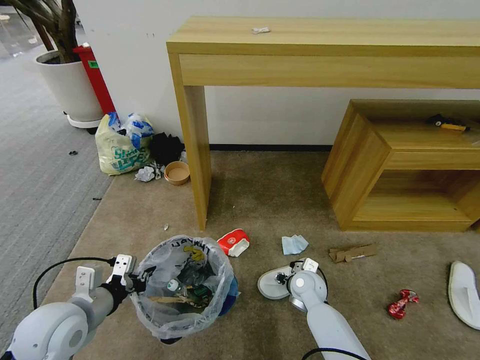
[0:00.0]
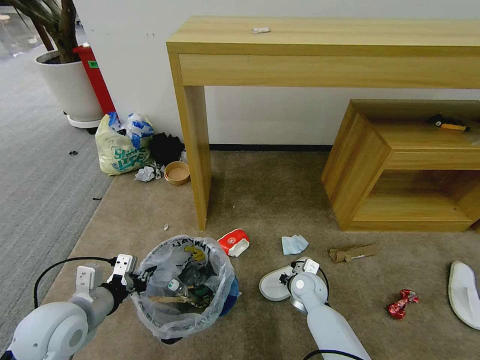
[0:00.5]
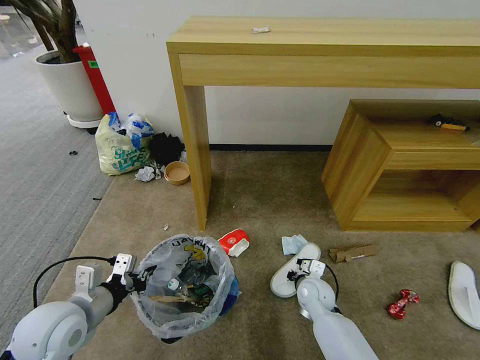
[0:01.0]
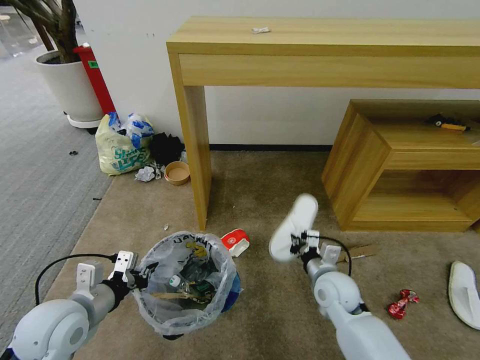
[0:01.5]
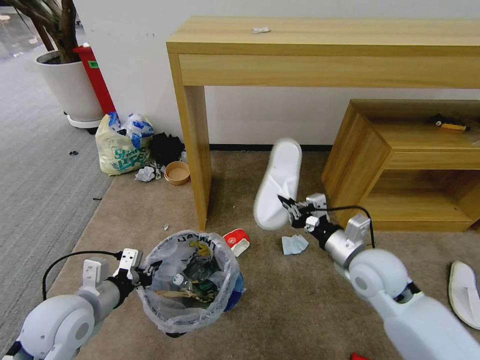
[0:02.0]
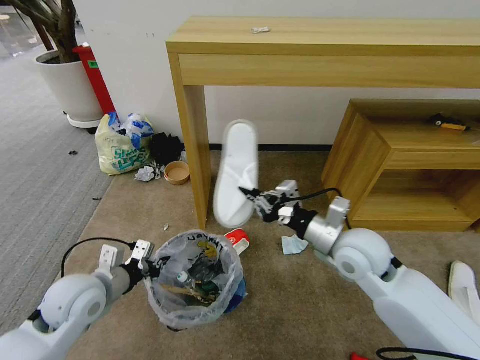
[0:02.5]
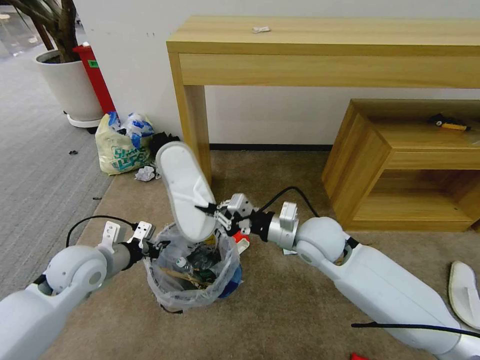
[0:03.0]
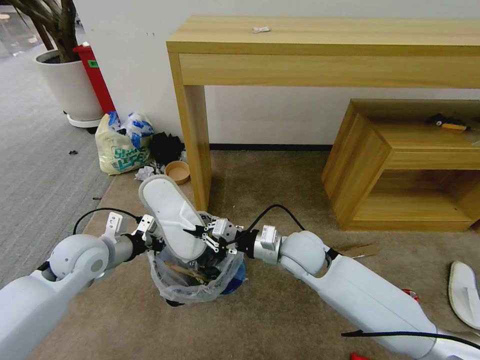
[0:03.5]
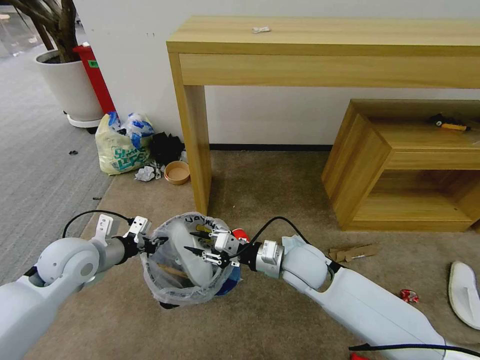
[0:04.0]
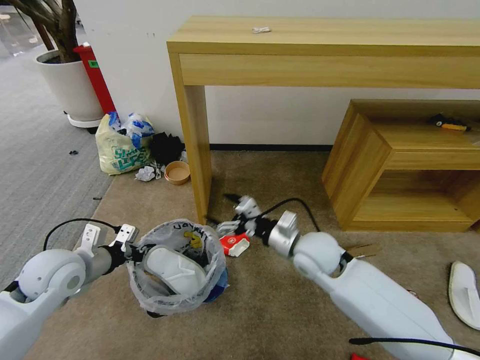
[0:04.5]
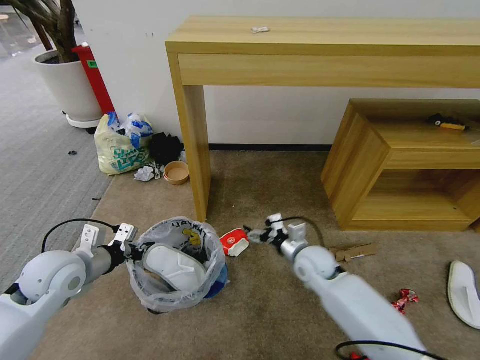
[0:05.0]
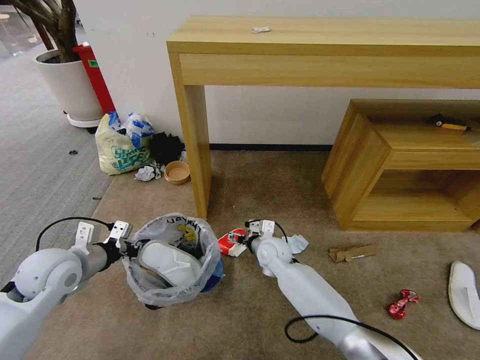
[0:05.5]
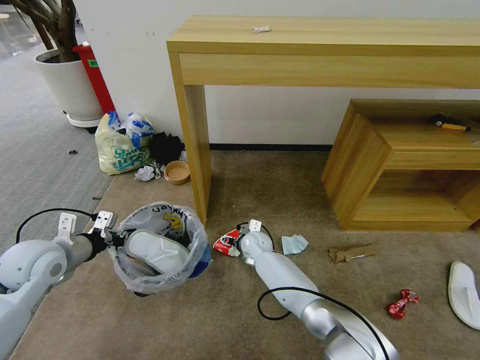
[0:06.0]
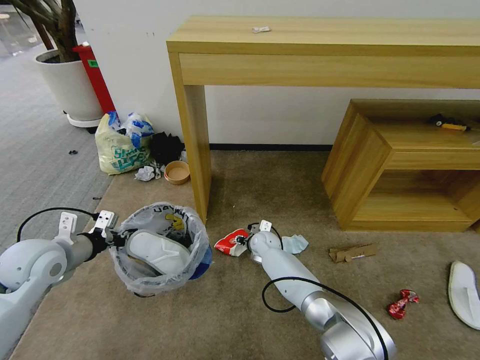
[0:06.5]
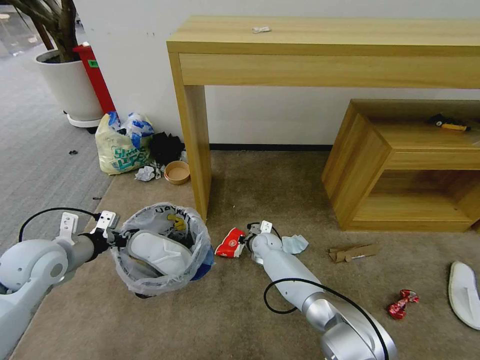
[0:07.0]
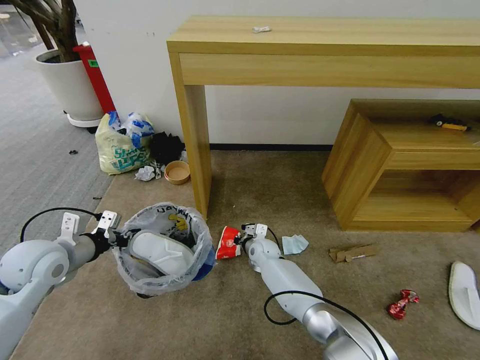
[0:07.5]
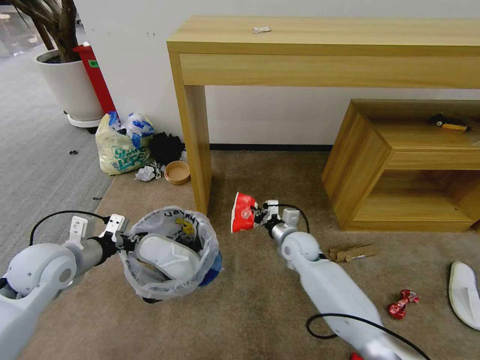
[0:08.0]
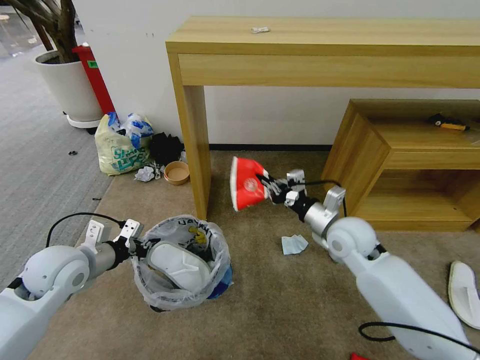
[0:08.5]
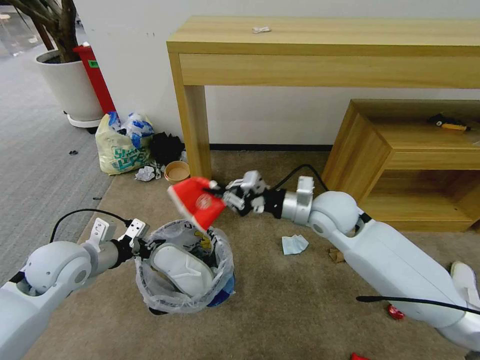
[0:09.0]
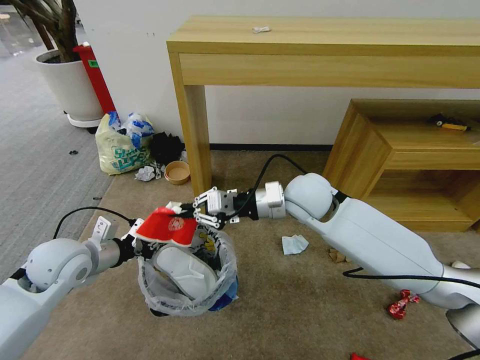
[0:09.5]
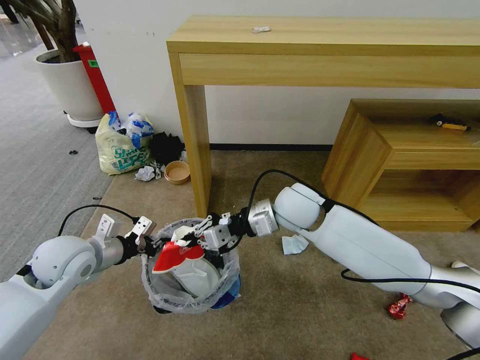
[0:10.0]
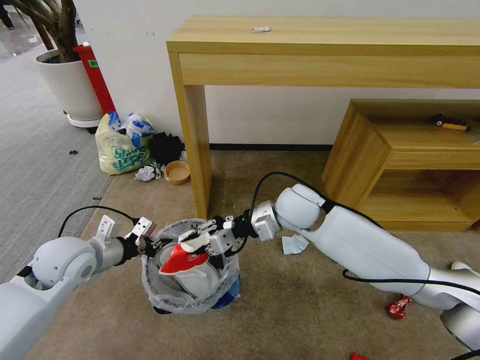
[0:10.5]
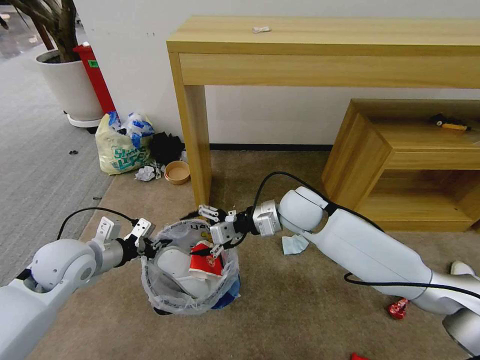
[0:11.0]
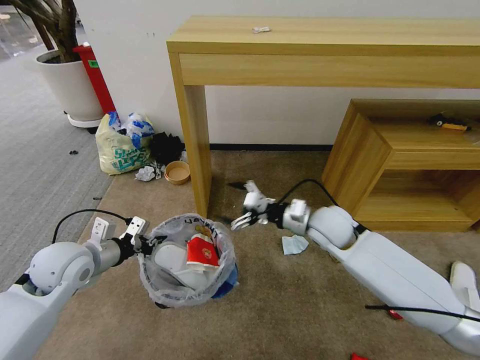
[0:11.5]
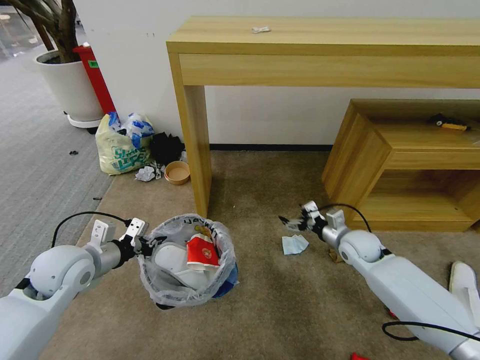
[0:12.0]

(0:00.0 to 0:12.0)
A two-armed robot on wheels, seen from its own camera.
Task of the whole recording: Pick up the trash bin and place the garbage on the floor into it.
0:00.0 - 0:02.0: The right gripper heads upward, covering approximately 20 cm, and closes its fingers.
0:02.0 - 0:04.0: The right gripper shifts some 15 cm to the left. The left gripper goes some 10 cm forward.
0:04.0 - 0:06.0: The left gripper travels to the left by approximately 5 cm; the right gripper heads downward, forward and to the left, covering roughly 20 cm, and opens.
0:06.0 - 0:08.0: The right gripper heads to the right, covering approximately 10 cm, and closes.
0:08.0 - 0:10.0: The right gripper travels upward by some 20 cm.
0:10.0 - 0:12.0: The right gripper shifts approximately 25 cm to the right and downward, and opens its fingers.

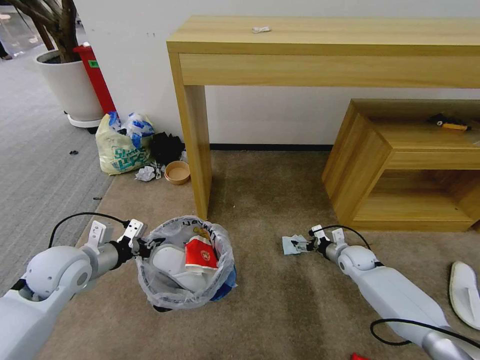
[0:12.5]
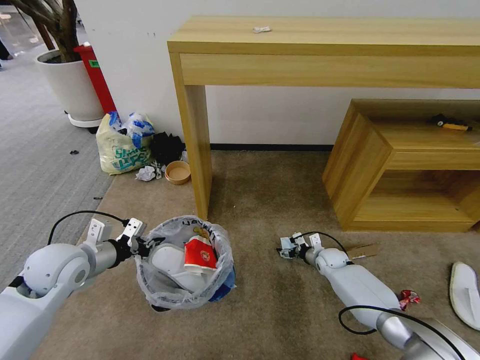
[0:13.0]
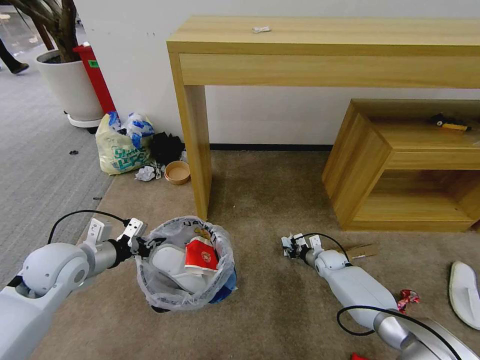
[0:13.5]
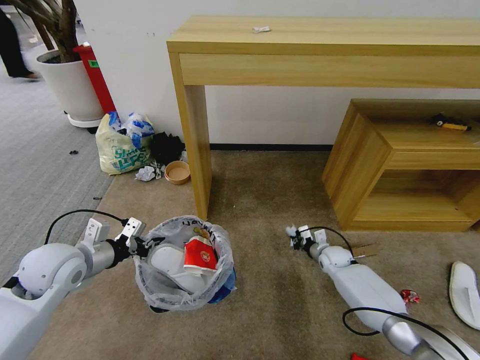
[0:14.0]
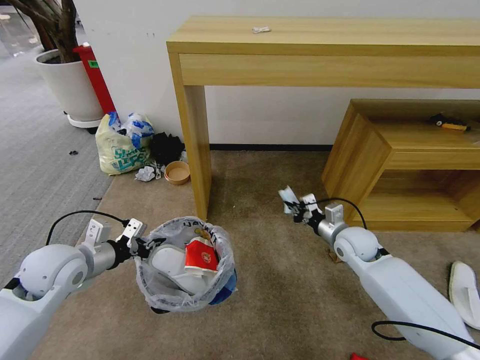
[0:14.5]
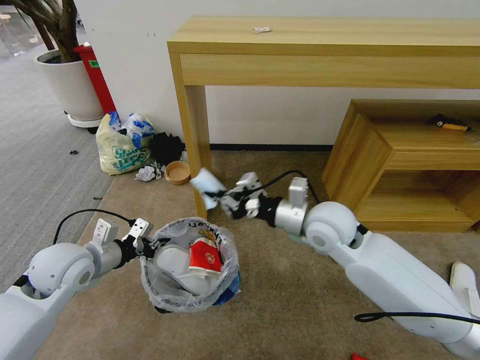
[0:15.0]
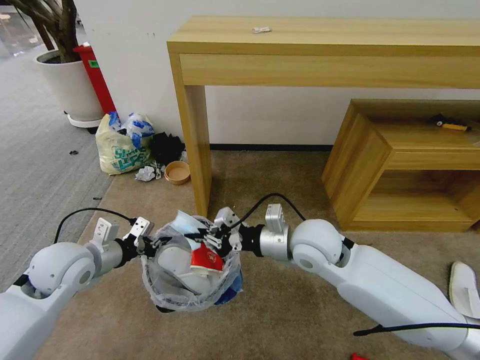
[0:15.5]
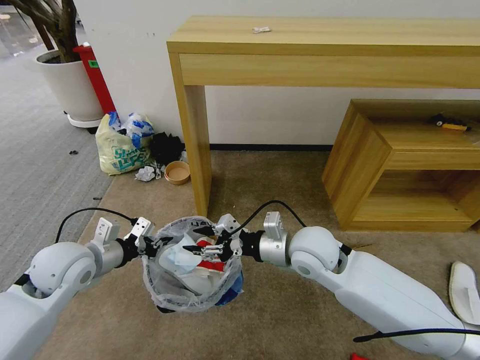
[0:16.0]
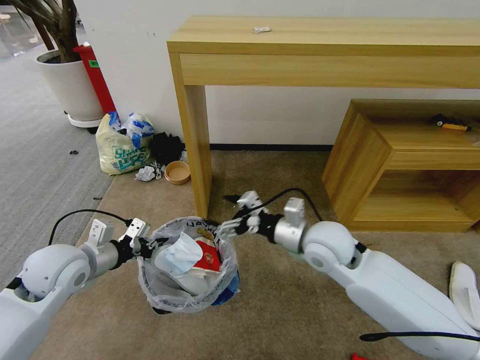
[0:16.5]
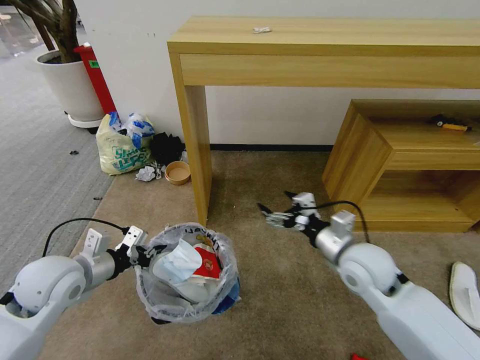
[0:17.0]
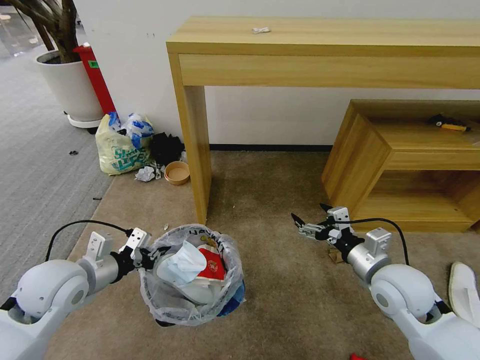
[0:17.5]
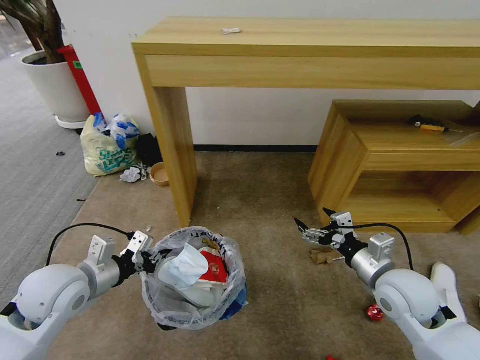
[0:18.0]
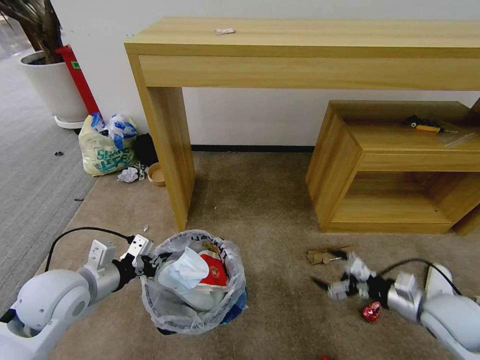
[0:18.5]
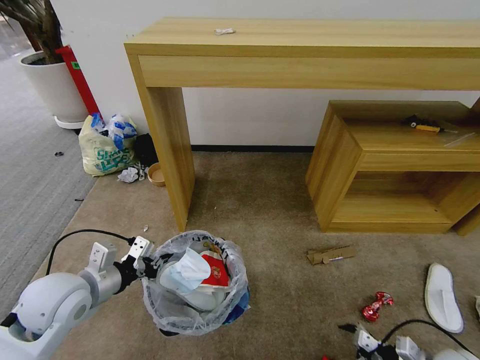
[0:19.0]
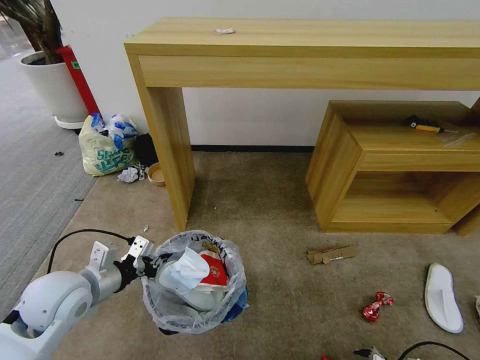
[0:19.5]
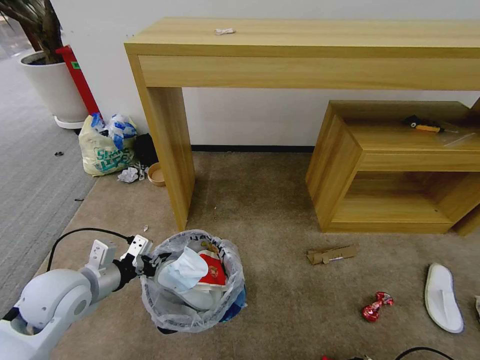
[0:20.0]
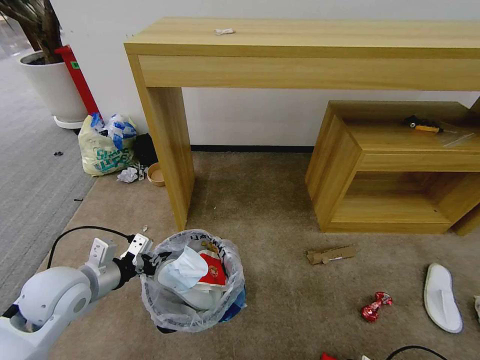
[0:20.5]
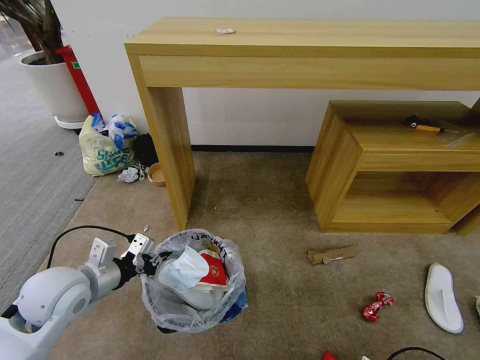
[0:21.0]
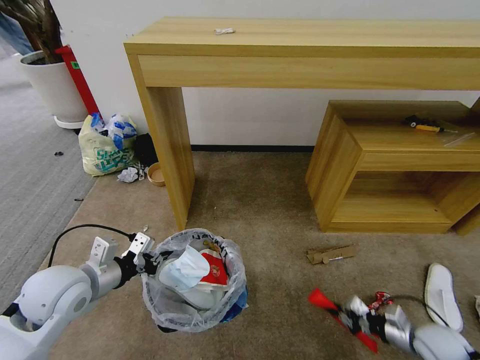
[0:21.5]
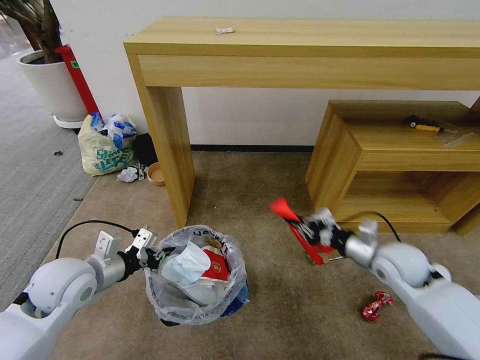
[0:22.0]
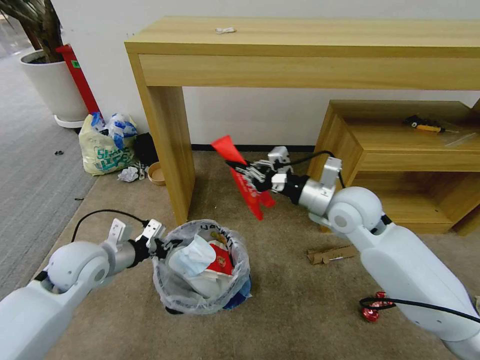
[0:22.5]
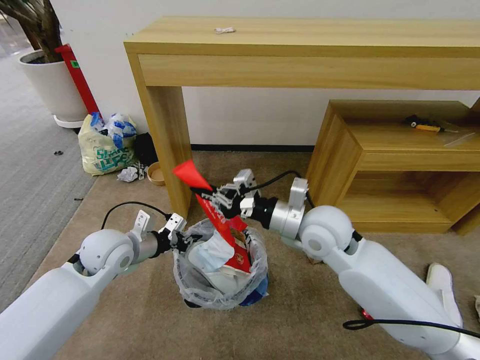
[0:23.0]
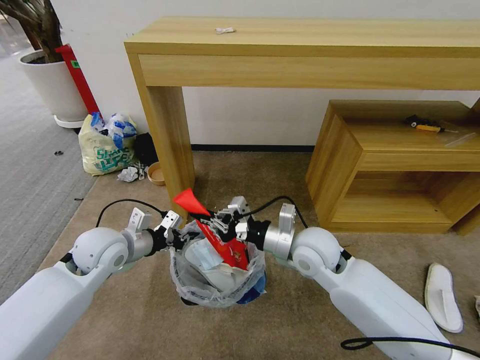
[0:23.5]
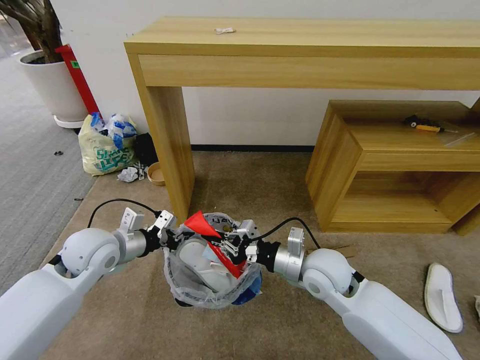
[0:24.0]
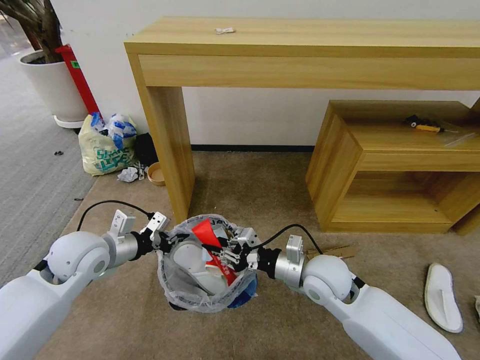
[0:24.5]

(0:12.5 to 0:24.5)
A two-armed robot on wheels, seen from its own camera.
Task of the whole recording: Pick up the trash bin and place the garbage on the floor into it.
0:12.5 - 0:14.5: The right gripper heads upward and to the left, covering some 15 cm, and closes its fingers.
0:14.5 - 0:16.5: The right gripper shifts roughly 20 cm to the left, upward and backward, and opens.
0:16.5 - 0:18.5: The left gripper shifts roughly 5 cm backward, while the right gripper shifts about 30 cm to the right, backward and downward.
0:18.5 - 0:20.5: The right gripper goes approximately 20 cm downward and backward, and closes.
0:20.5 - 0:22.5: The left gripper is displaced forward by about 5 cm; the right gripper travels upward, forward and to the left by some 50 cm, and closes its fingers.
0:22.5 - 0:24.5: The right gripper shifts roughly 15 cm downward, backward and to the left.

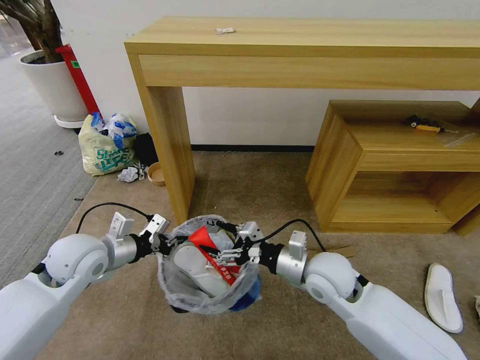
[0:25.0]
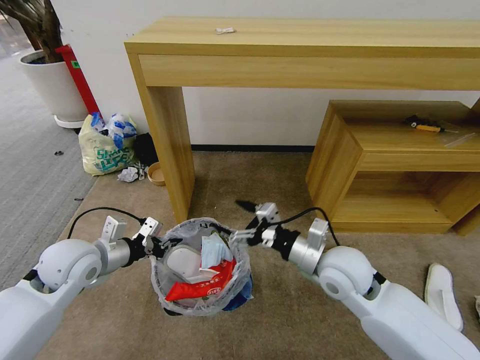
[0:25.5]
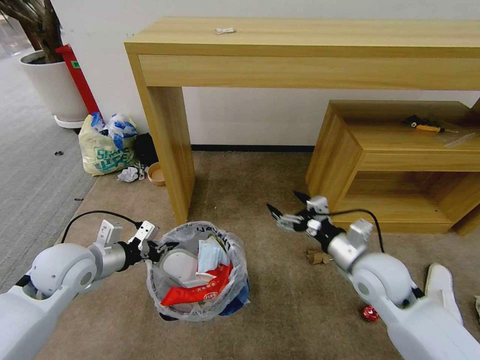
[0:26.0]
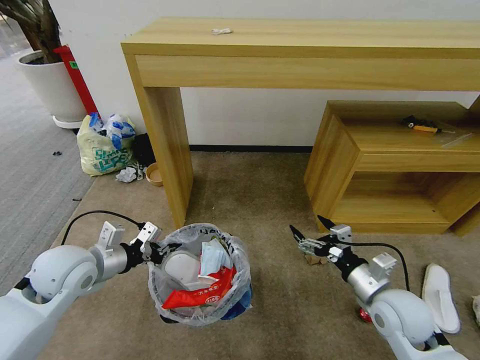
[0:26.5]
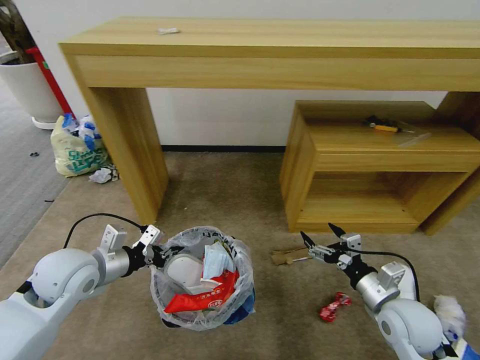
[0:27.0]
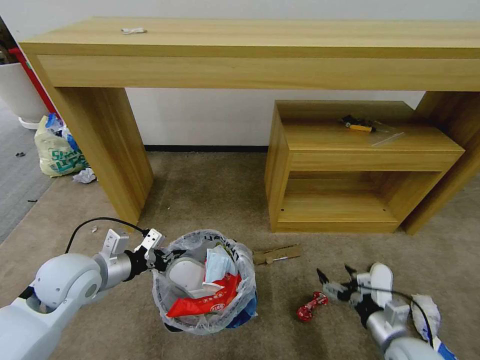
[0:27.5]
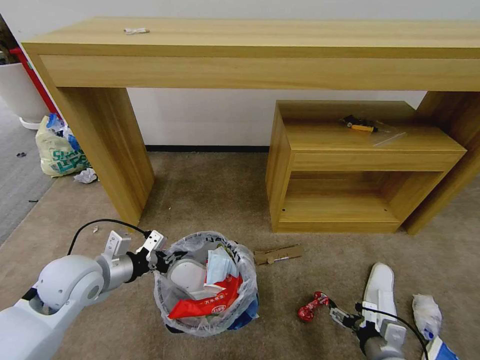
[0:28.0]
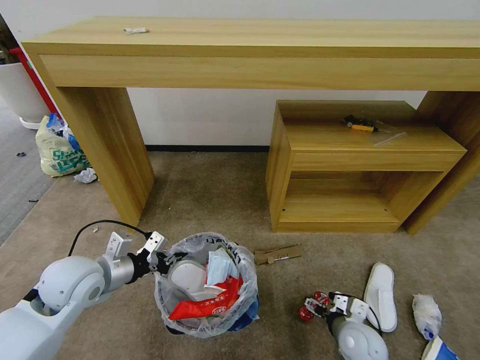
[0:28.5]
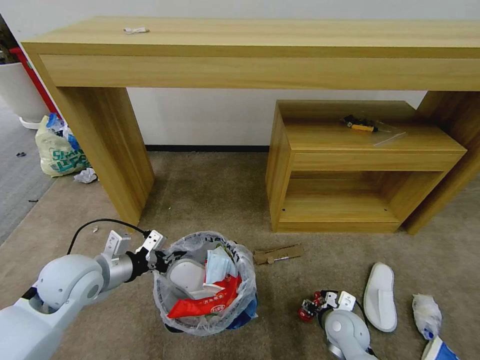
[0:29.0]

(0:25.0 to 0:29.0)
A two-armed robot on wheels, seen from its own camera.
Task of the whole recording: Pick up the trash bin and place the garbage on the floor into it.
0:25.0 - 0:27.0: The right gripper travels to the right and backward by some 15 cm.
0:27.0 - 0:29.0: The right gripper shifts roughly 15 cm downward and to the left.
